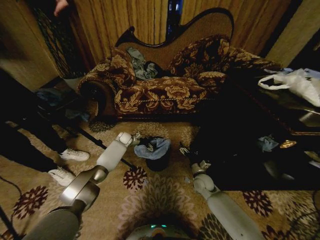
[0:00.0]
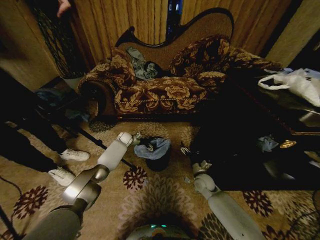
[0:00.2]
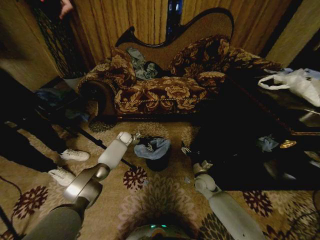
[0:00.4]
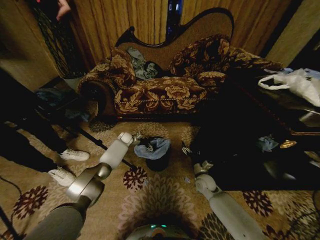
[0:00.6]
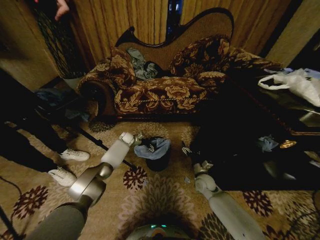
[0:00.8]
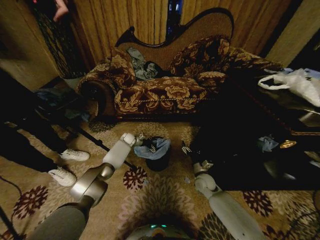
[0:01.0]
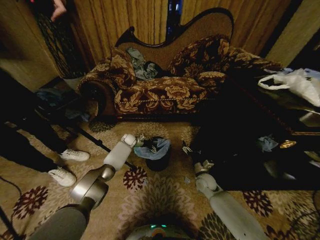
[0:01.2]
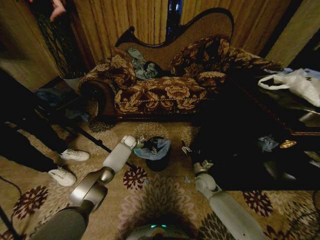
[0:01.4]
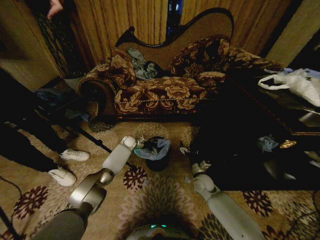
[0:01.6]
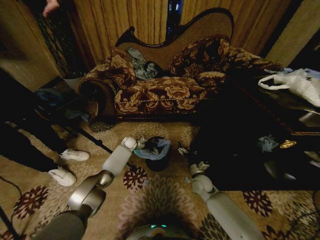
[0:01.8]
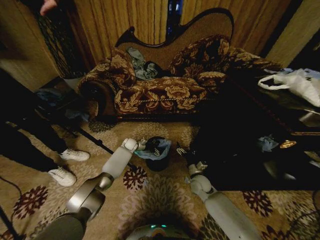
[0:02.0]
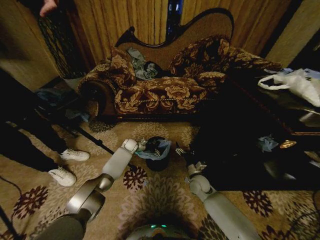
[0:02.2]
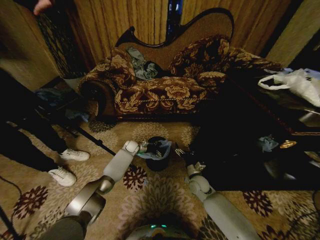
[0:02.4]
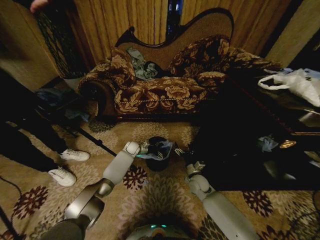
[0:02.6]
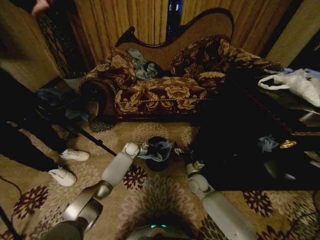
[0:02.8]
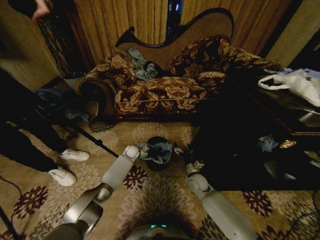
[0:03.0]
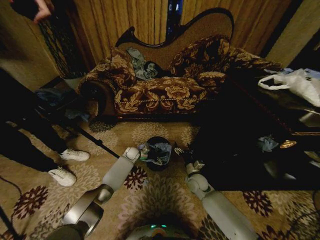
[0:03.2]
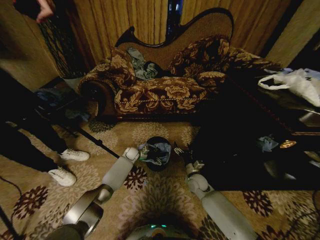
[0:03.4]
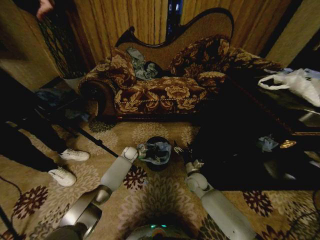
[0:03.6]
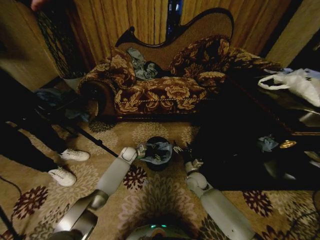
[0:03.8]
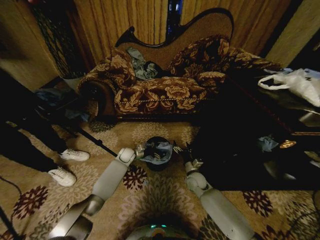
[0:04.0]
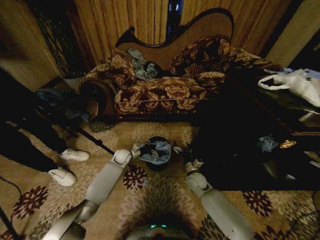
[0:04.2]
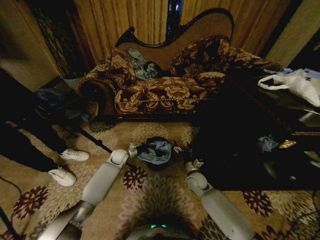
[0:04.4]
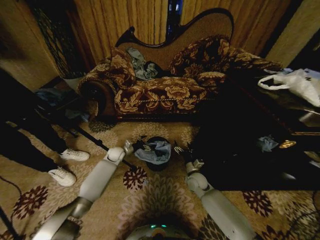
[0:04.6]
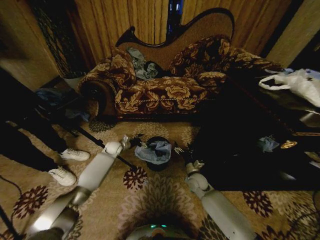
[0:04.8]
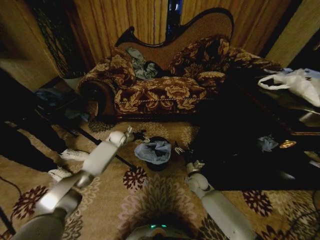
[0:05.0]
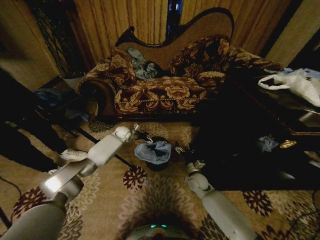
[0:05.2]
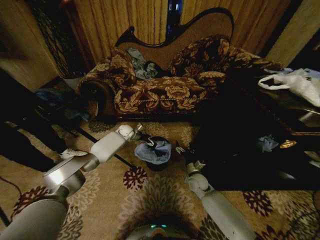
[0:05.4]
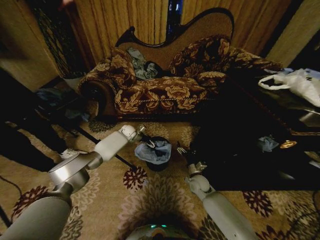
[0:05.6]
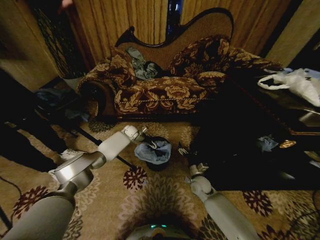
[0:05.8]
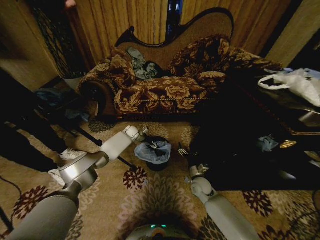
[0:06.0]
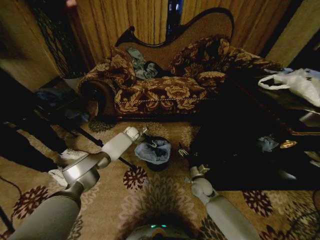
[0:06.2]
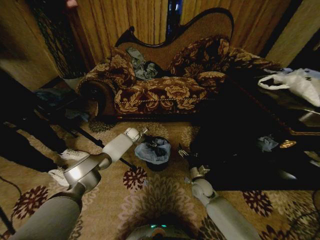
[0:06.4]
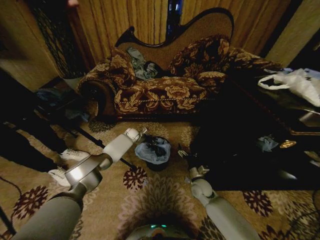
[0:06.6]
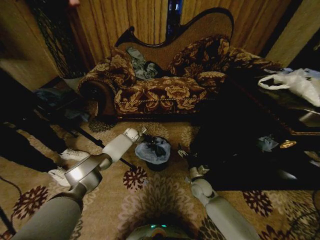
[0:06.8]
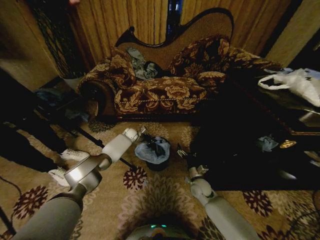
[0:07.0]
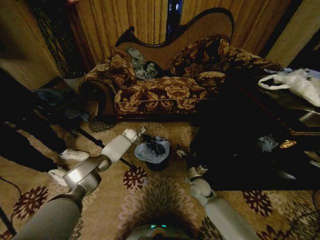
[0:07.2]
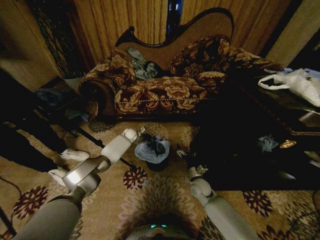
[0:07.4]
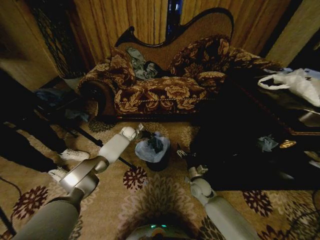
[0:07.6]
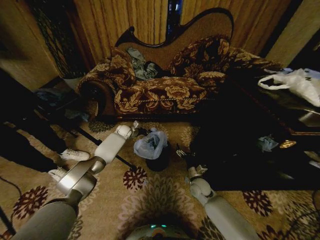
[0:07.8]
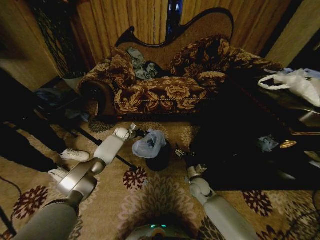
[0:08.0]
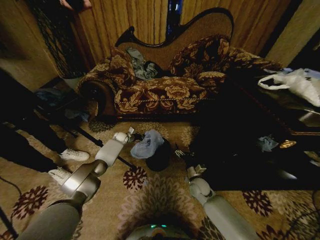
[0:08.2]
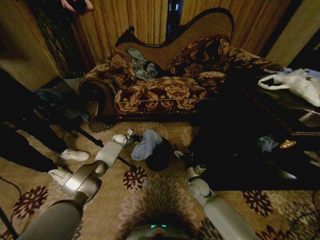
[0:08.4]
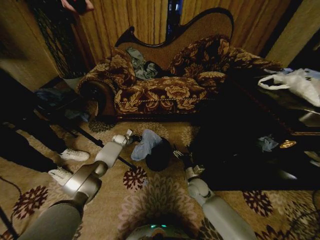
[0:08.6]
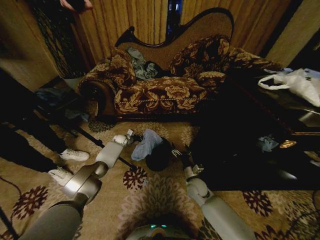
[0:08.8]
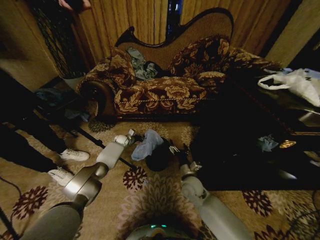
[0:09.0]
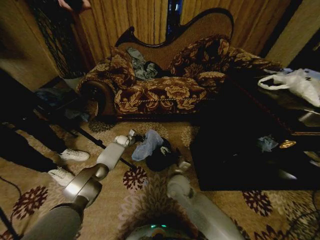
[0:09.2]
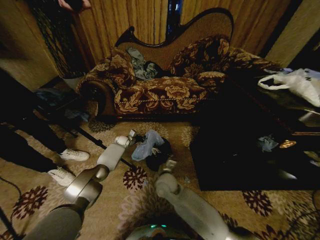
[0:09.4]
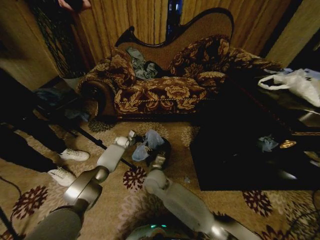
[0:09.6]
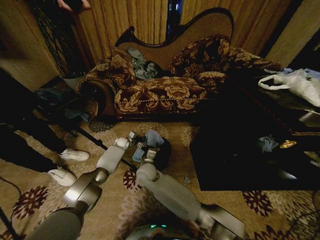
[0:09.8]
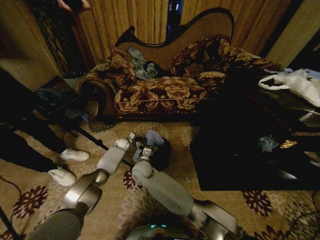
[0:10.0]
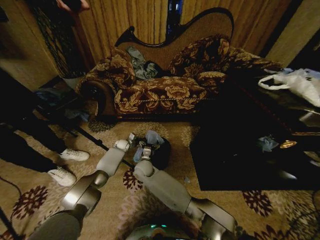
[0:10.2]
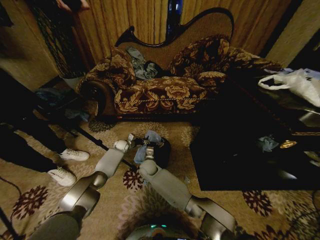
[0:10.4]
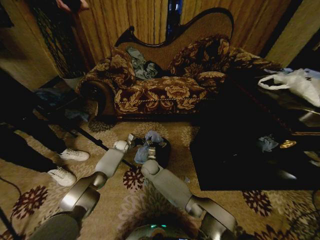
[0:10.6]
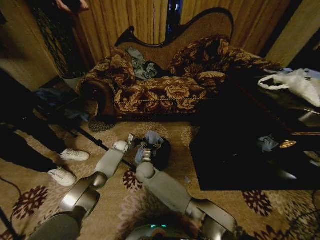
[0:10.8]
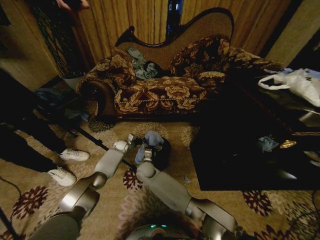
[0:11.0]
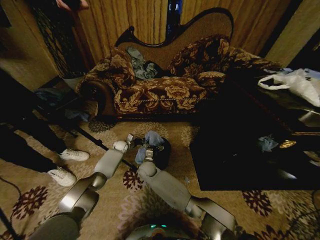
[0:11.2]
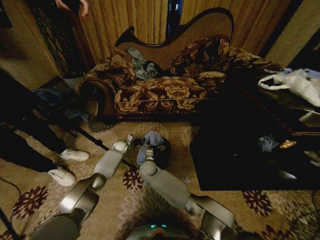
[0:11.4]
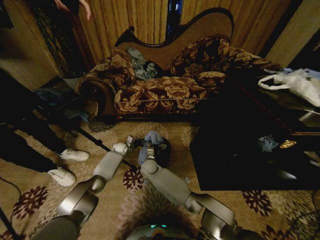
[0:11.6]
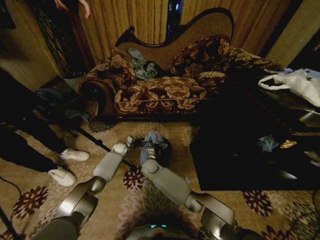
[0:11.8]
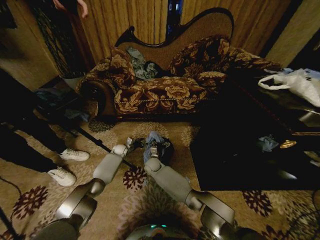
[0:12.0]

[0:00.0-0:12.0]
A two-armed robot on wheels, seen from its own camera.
Task of the whole recording: Place a garbage bag over the trash bin.
0:00.0 to 0:01.6: The grippers stay close to where they were, moving slightly.
0:01.6 to 0:03.0: The left gripper travels backward by some 5 cm.
0:03.0 to 0:04.4: The left gripper is displaced backward and to the left by roughly 10 cm.
0:04.4 to 0:06.0: The left gripper shifts approximately 15 cm forward.
0:06.0 to 0:07.6: The left gripper closes.
0:07.6 to 0:09.0: The left gripper goes approximately 10 cm downward and to the left; the right gripper heads to the left and upward, covering about 10 cm.
0:09.0 to 0:10.4: The right gripper travels to the left and forward by some 25 cm.
0:10.4 to 0:12.0: The left gripper opens up.

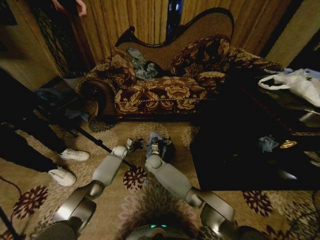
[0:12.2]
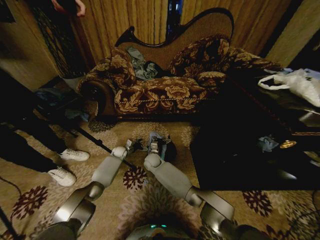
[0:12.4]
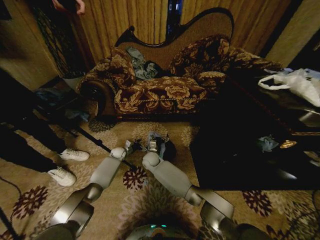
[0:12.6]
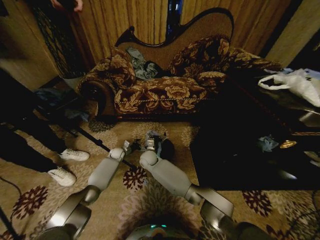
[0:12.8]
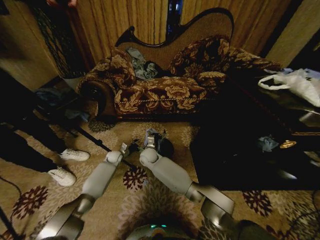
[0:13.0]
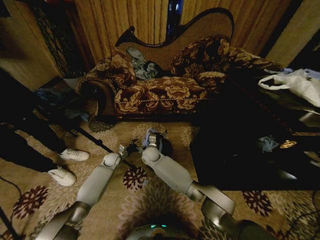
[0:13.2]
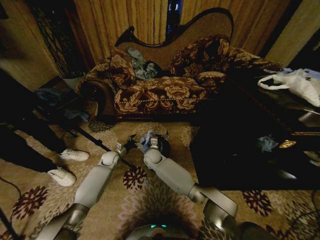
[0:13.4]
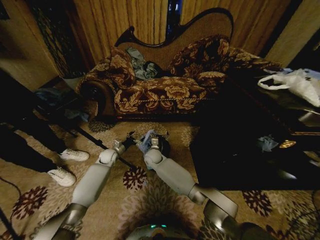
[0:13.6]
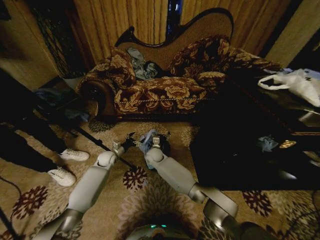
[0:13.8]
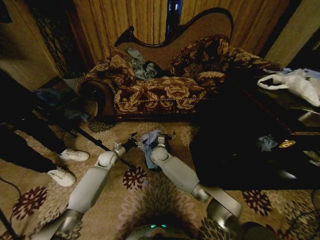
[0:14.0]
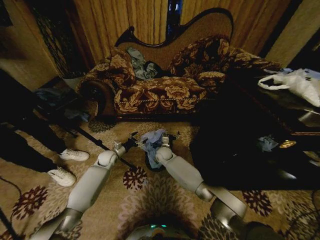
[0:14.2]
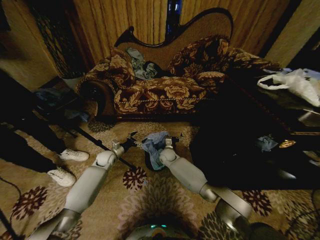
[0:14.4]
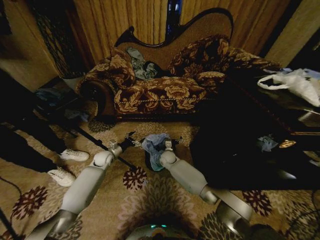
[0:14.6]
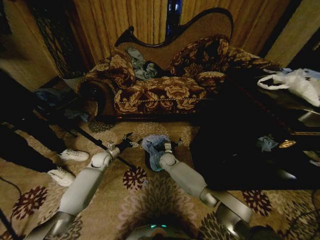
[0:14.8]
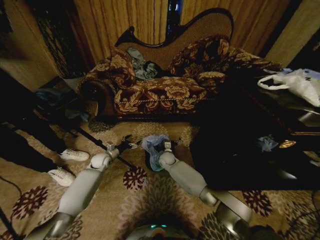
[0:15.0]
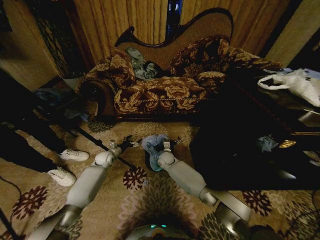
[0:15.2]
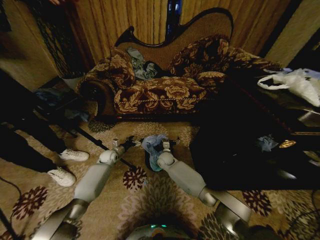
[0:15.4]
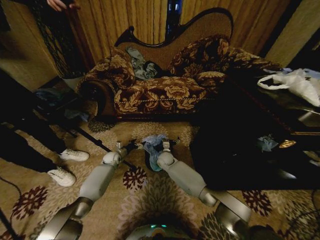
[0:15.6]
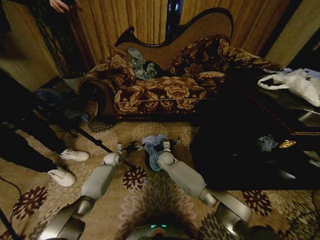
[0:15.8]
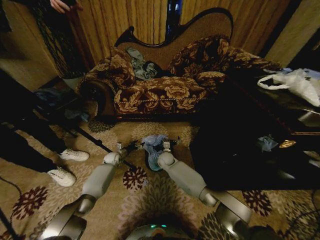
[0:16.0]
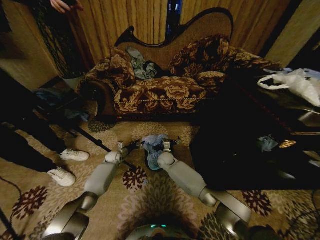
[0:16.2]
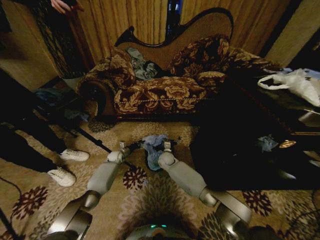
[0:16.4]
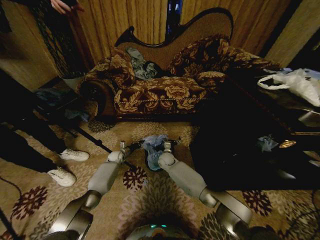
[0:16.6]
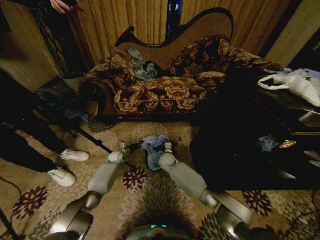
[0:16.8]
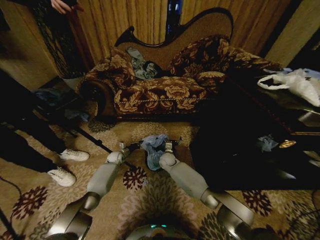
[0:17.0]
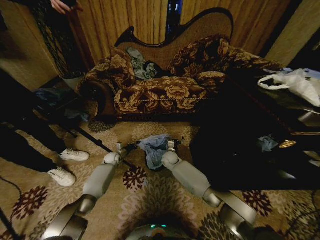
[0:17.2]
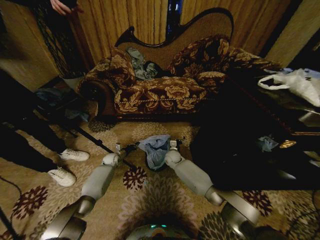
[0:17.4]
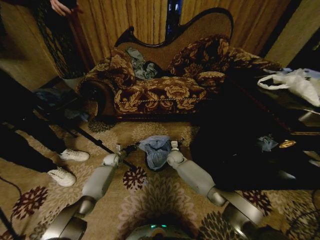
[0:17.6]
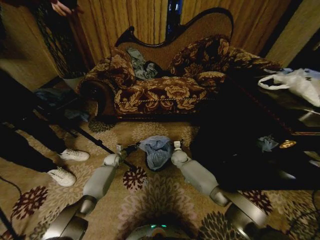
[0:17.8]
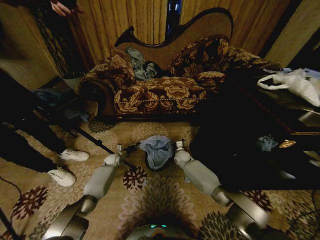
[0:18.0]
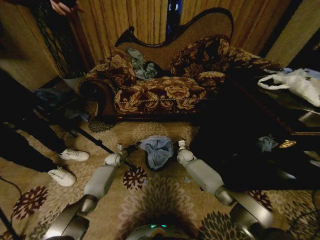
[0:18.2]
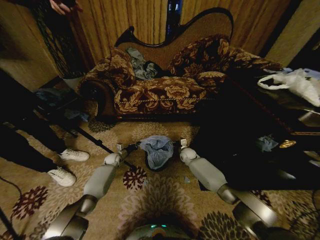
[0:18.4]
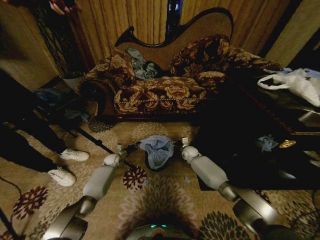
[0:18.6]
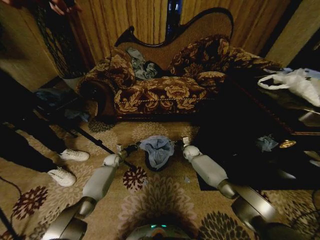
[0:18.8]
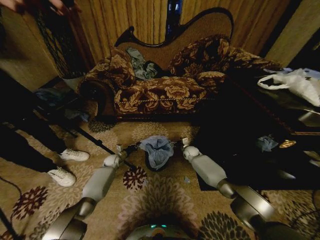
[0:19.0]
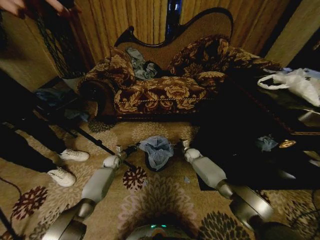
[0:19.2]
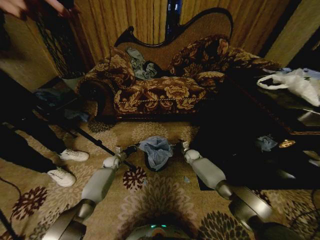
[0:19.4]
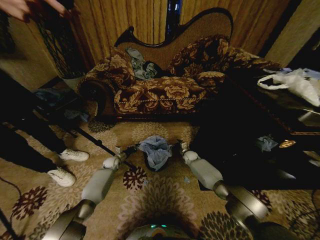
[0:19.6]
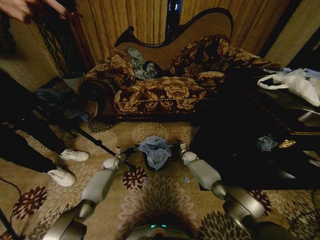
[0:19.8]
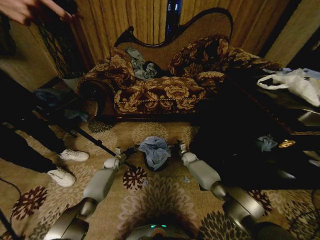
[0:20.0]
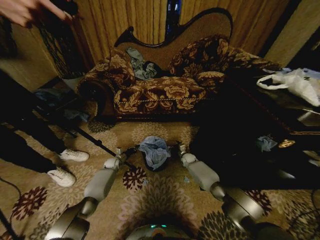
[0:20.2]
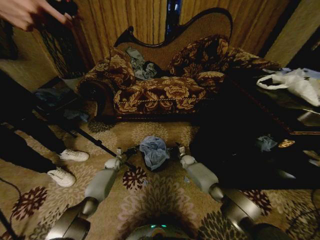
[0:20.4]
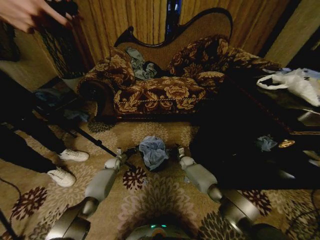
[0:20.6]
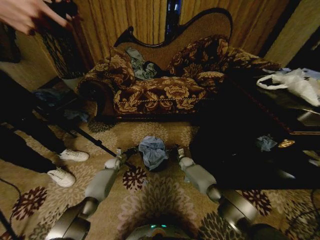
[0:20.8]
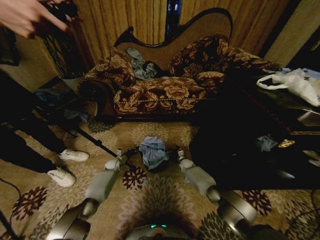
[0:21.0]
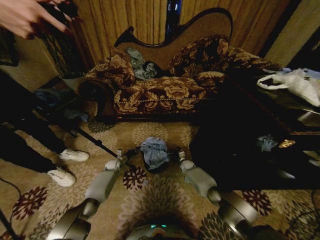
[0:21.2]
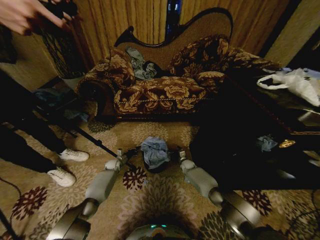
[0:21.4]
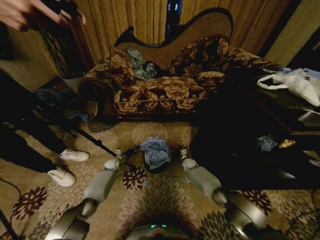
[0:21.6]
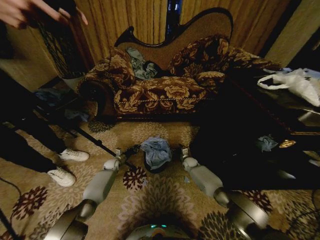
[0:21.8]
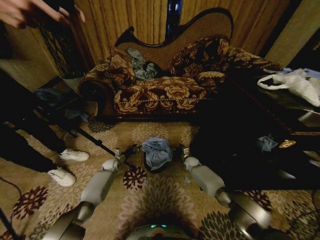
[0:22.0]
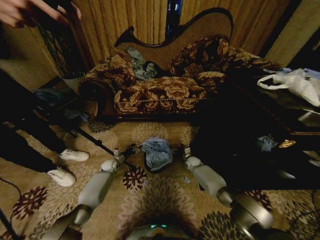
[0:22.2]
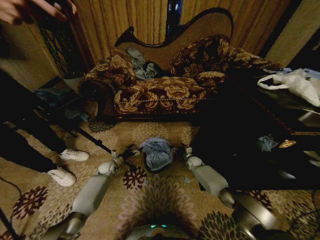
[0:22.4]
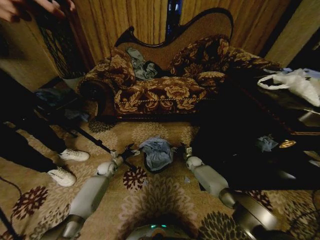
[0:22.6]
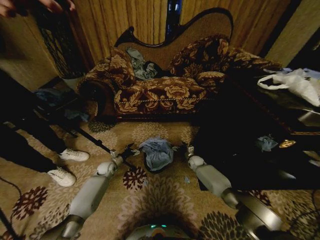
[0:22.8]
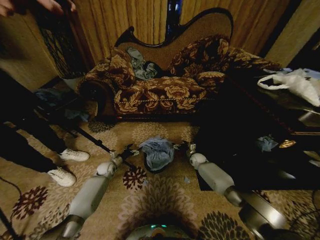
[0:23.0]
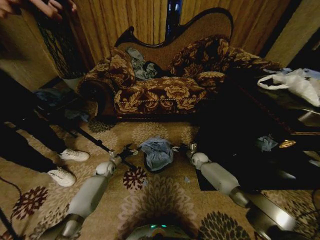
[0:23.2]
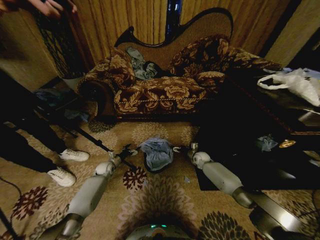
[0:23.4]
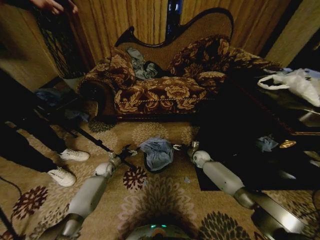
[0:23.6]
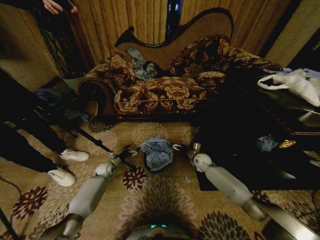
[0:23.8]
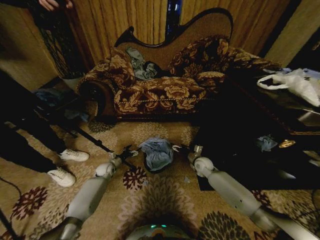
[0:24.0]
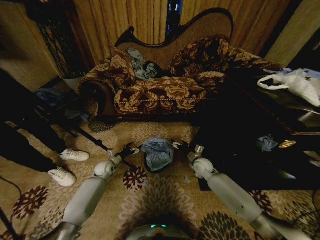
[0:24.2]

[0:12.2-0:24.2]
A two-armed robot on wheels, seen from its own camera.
Task of the whole recording: Place a garbage bag over the trash bin.
0:12.2 to 0:13.8: The left gripper goes about 10 cm backward and upward; the right gripper heads upward, covering about 5 cm.
0:13.8 to 0:15.2: The right gripper shifts some 5 cm to the right.
0:15.2 to 0:16.6: The left gripper moves downward and forward, about 10 cm, and closes.
0:16.6 to 0:18.2: The right gripper shifts roughly 10 cm to the right.
0:18.2 to 0:19.8: The right gripper shifts by roughly 5 cm.
0:19.8 to 0:21.2: The right gripper shifts about 5 cm downward.
0:21.2 to 0:22.6: The right gripper shifts by some 5 cm; the left gripper ends up approximately 5 cm from where it was, and opens.
0:22.6 to 0:24.2: The right gripper is displaced upward and backward by about 15 cm.
